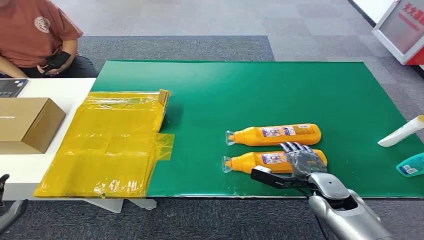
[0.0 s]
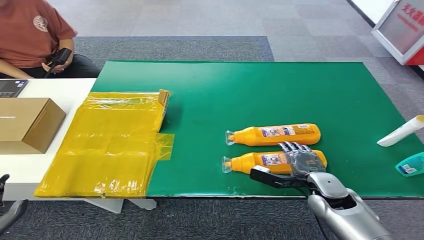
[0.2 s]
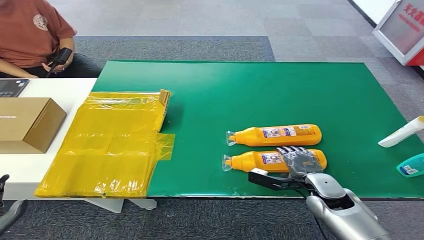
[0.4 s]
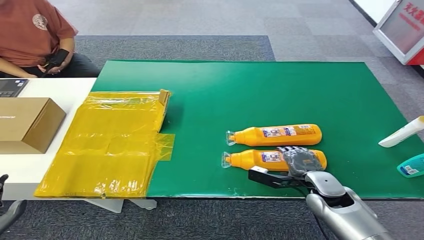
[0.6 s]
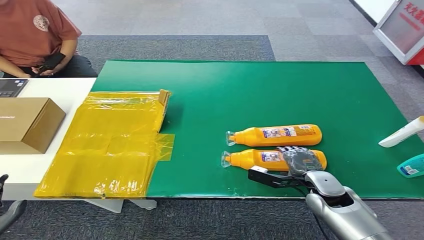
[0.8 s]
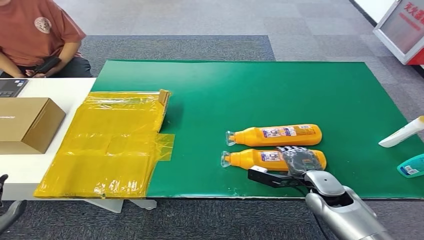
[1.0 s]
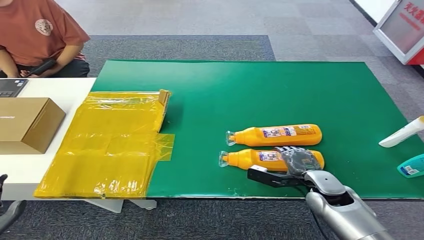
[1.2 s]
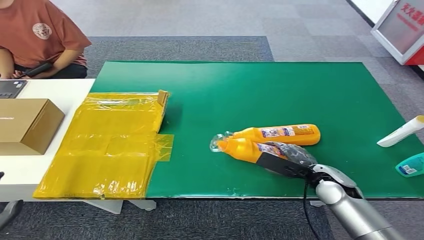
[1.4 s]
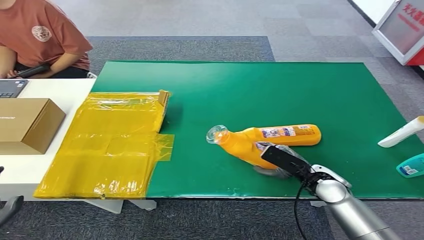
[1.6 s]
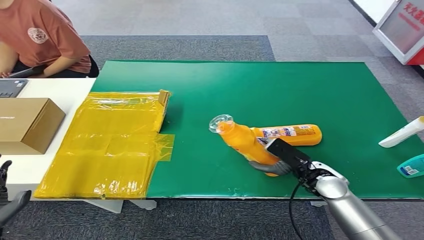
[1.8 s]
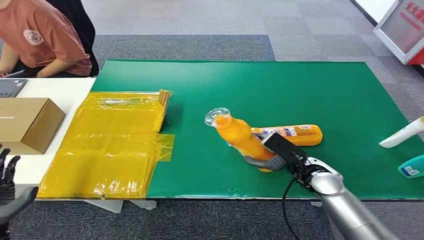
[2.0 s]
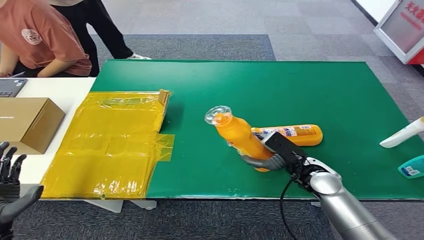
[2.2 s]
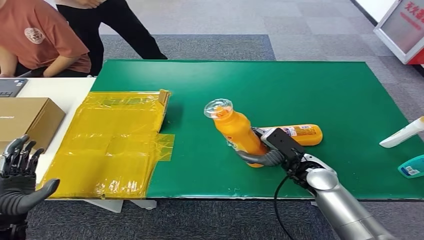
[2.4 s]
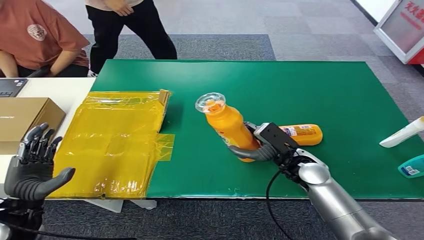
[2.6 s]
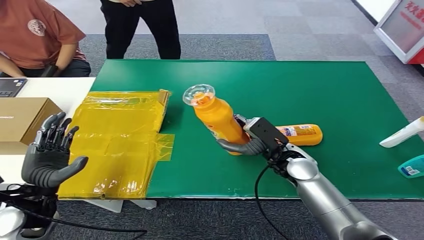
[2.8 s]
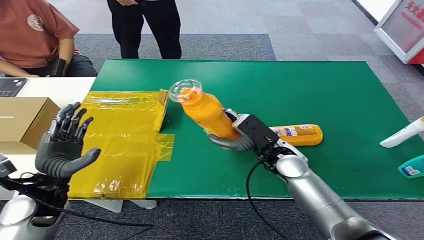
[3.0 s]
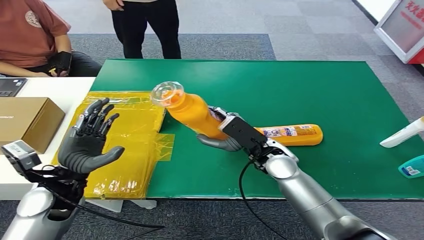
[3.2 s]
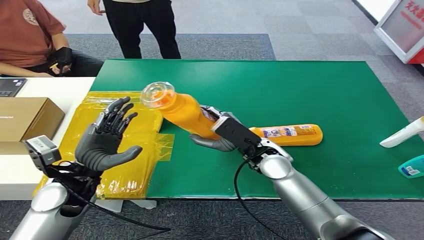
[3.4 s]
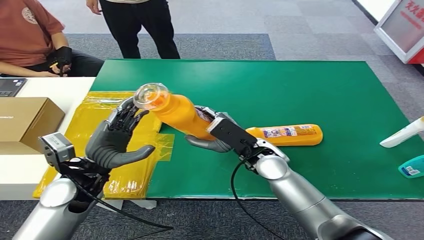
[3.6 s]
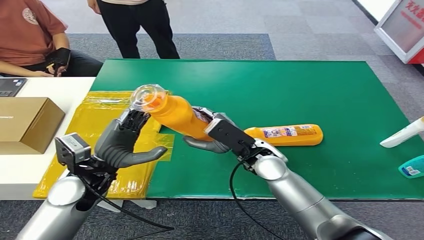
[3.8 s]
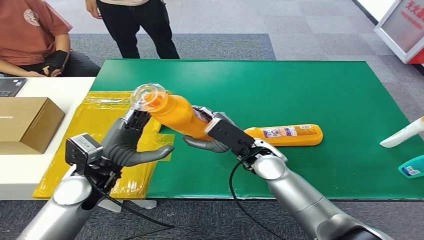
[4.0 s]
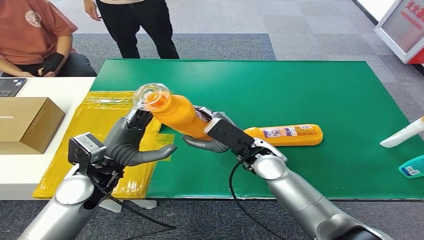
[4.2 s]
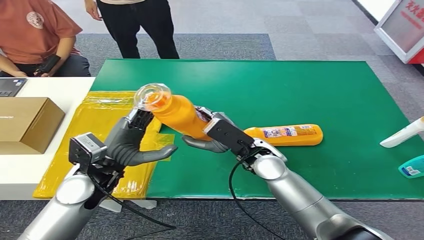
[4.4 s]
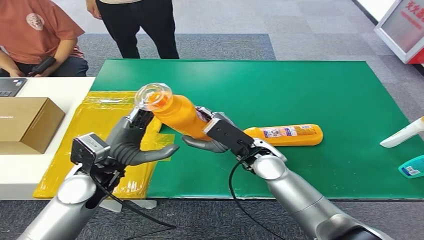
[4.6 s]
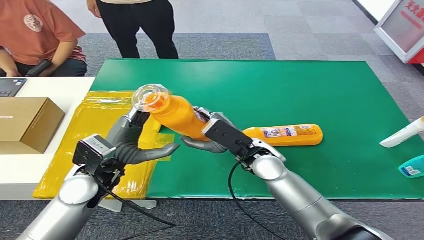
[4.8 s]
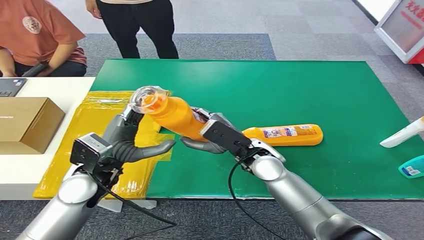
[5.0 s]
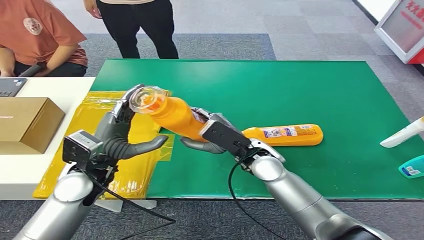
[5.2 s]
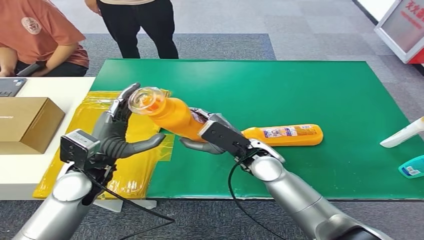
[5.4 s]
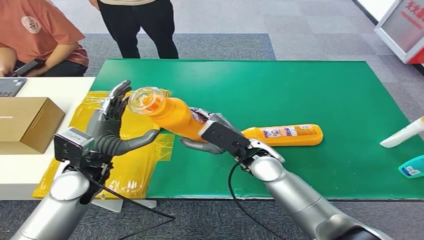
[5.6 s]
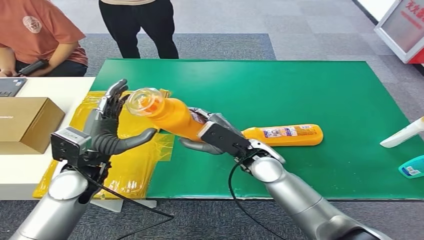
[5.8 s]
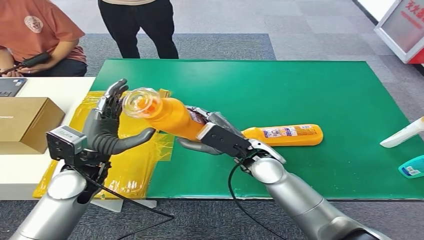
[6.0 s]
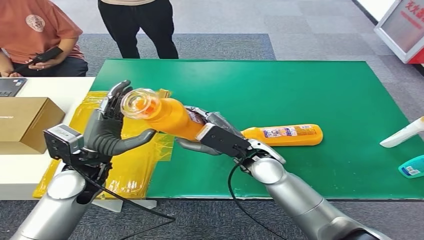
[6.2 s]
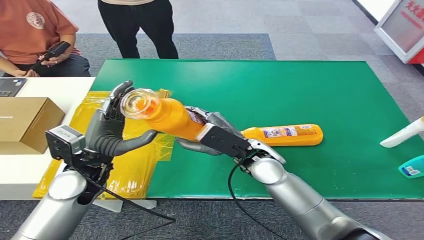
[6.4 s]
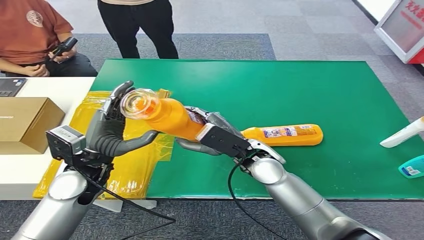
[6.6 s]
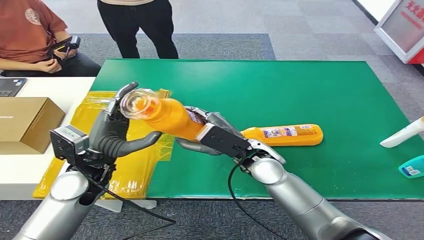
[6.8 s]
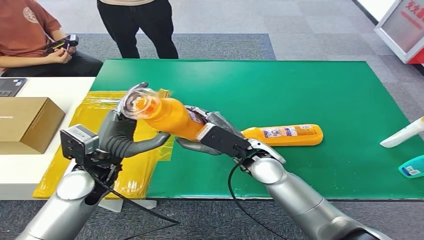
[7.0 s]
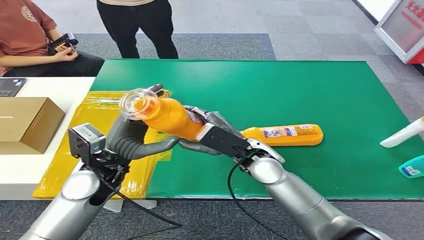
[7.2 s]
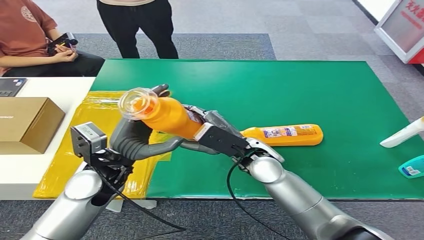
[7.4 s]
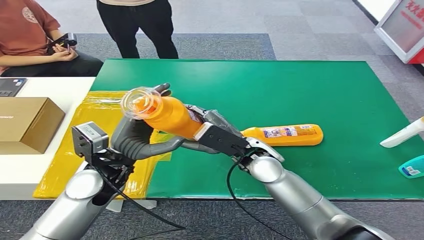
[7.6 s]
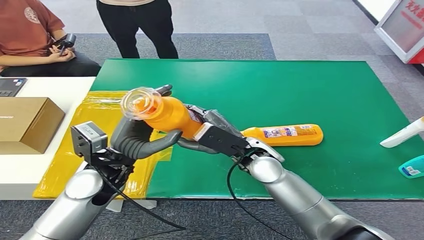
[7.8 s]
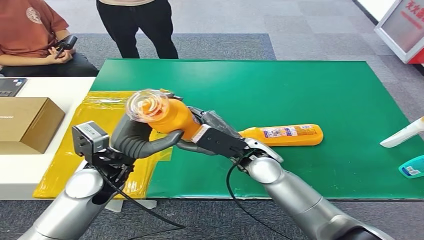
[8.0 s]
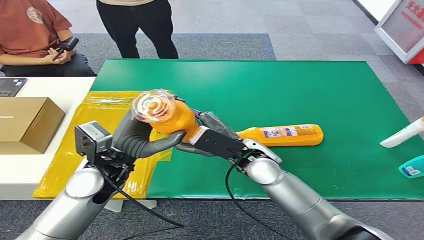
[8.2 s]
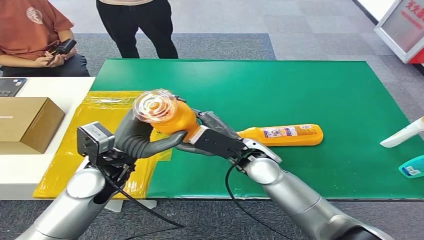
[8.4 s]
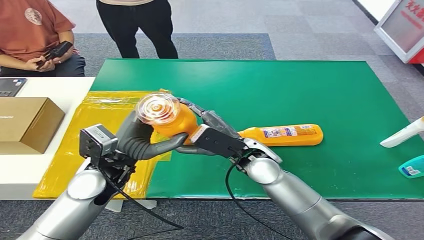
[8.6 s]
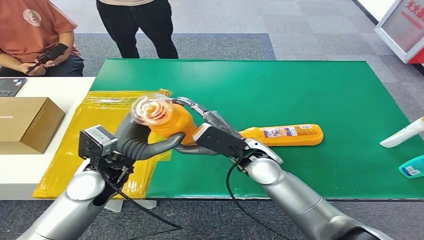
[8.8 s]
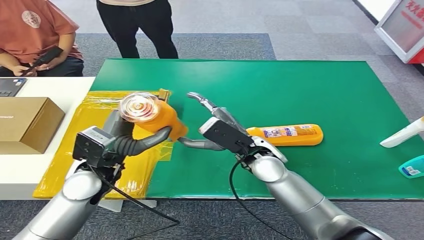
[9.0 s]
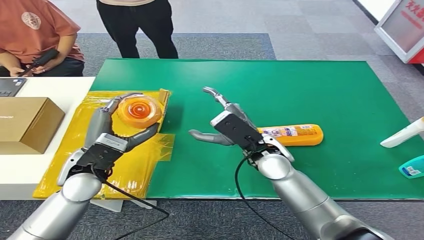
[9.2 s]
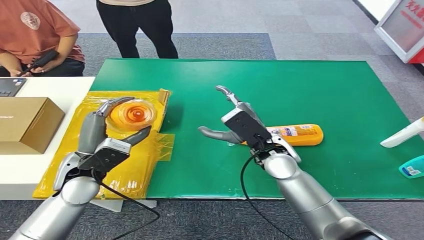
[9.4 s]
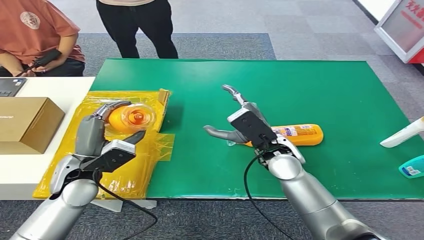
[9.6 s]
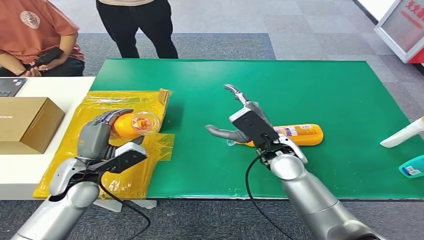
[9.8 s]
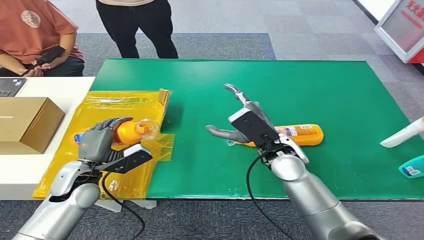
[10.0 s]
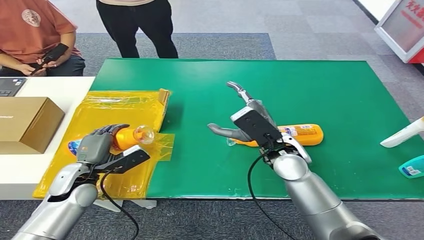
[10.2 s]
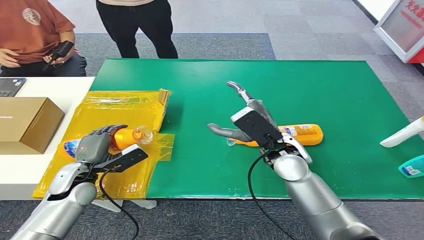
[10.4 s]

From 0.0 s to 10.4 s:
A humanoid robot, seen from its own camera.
Step, from 0.0 s to 3.0 s: Pick up the bottle from the table.
Step, from 3.2 s to 10.4 s: Turn the bottle to the front side.
From 4.4 s to 9.0 s: The hands stay close to where they were, moving slightly.
From 9.0 s to 10.4 s: The left hand is displaced downward and to the left by some 15 cm.
